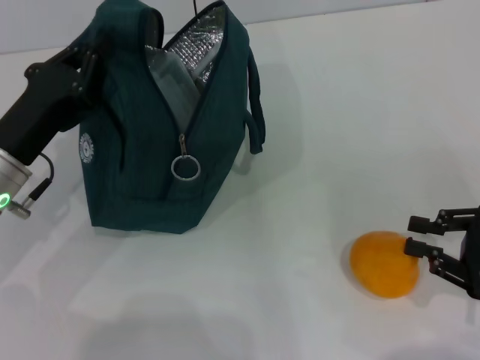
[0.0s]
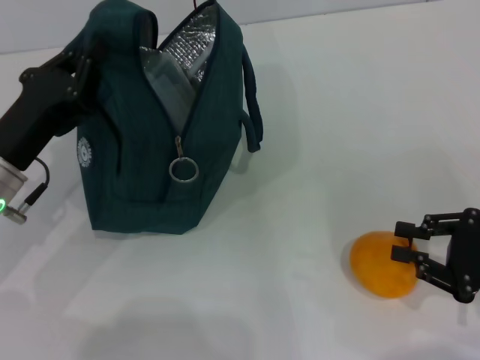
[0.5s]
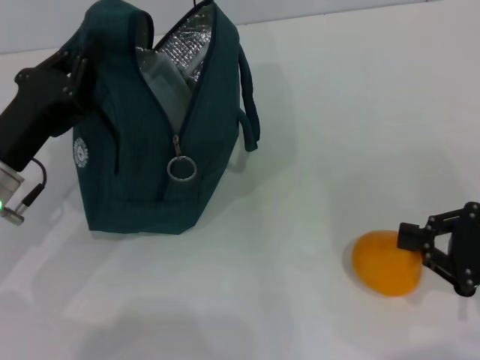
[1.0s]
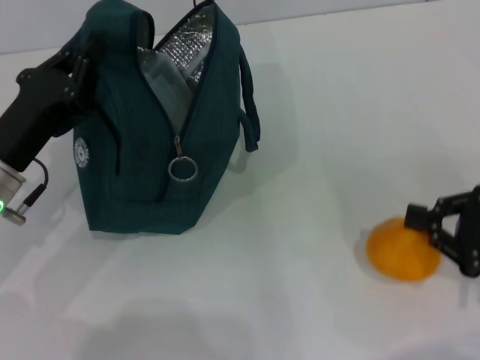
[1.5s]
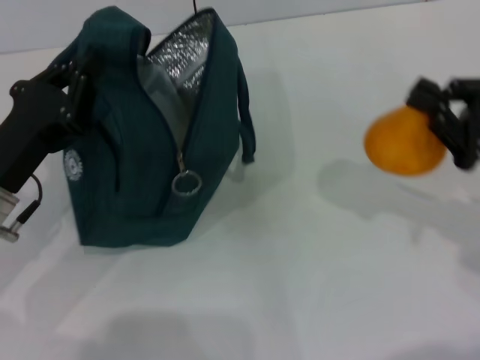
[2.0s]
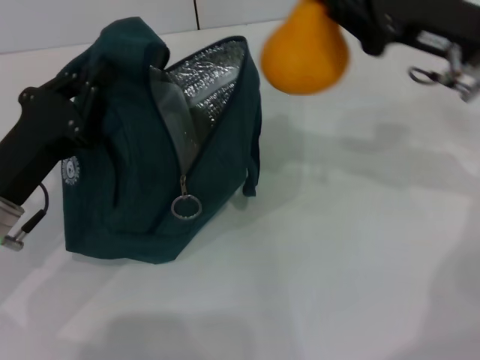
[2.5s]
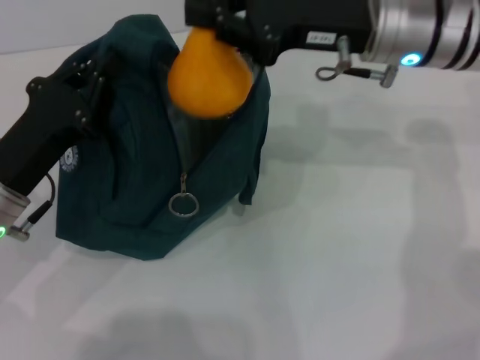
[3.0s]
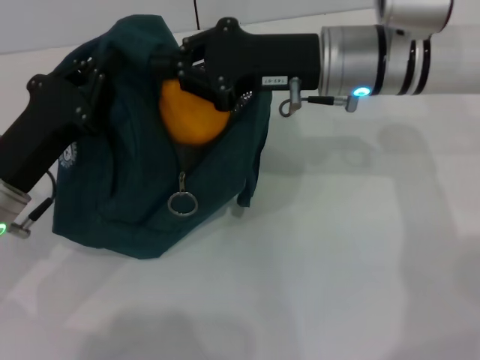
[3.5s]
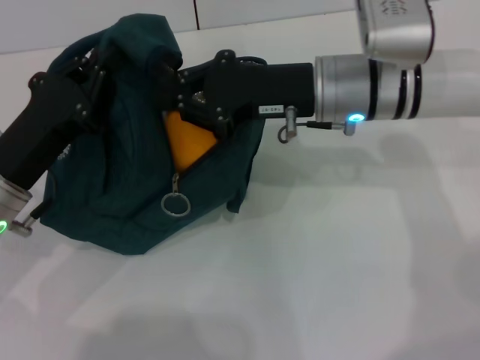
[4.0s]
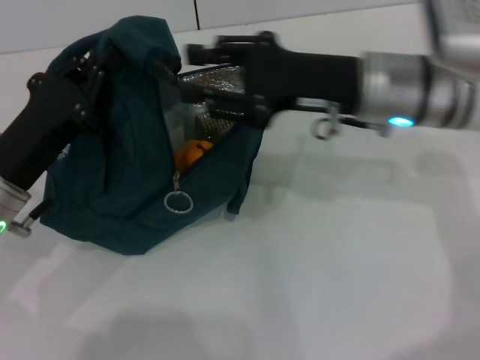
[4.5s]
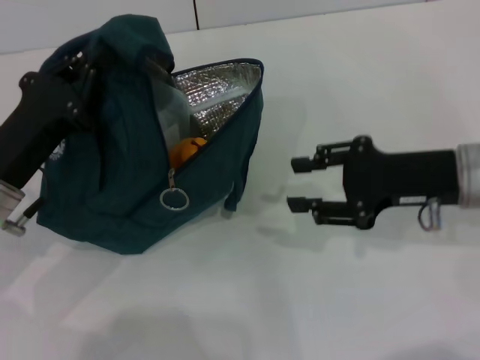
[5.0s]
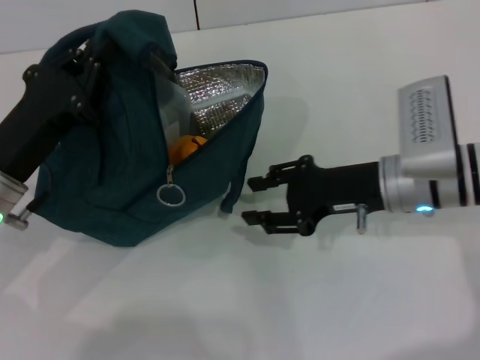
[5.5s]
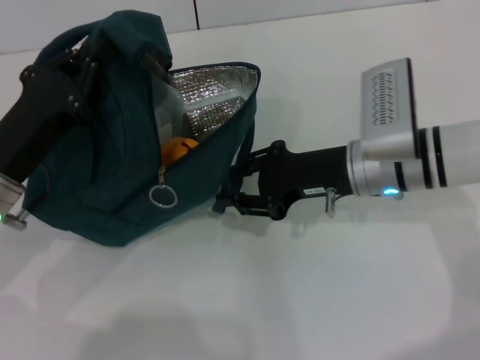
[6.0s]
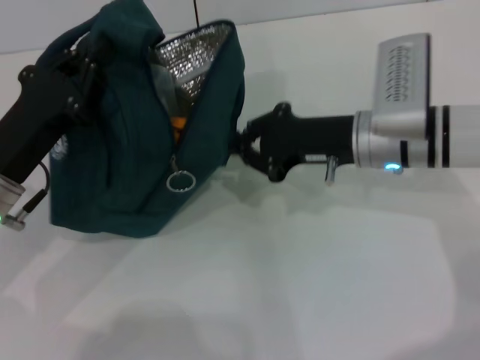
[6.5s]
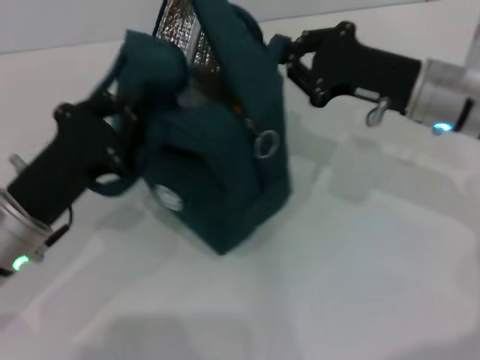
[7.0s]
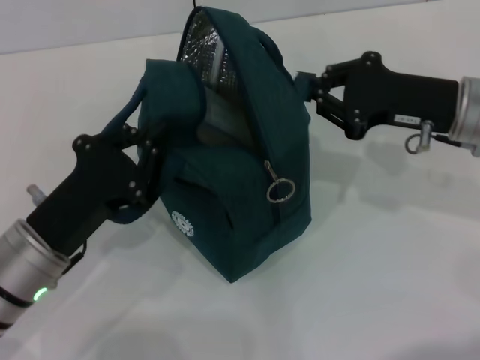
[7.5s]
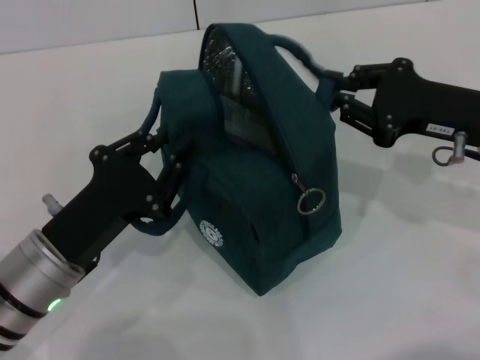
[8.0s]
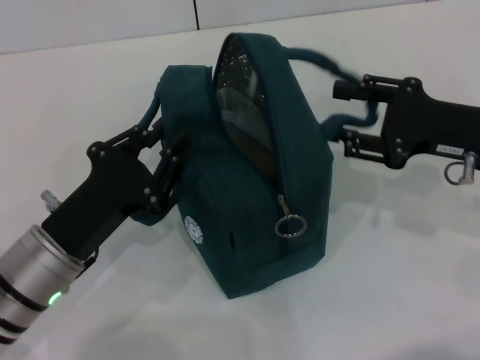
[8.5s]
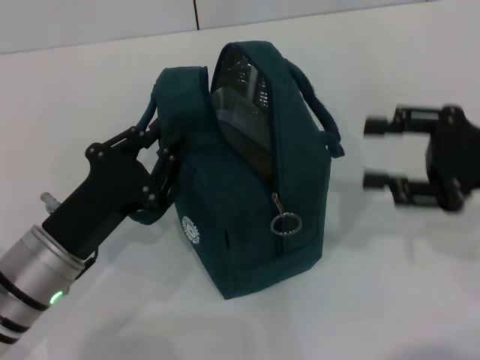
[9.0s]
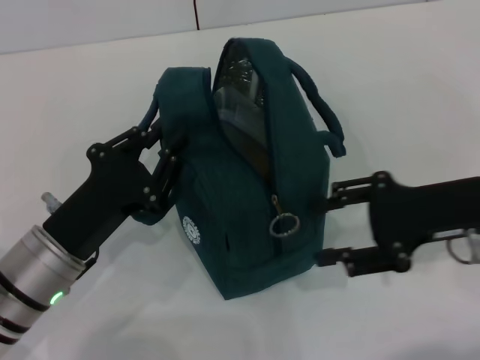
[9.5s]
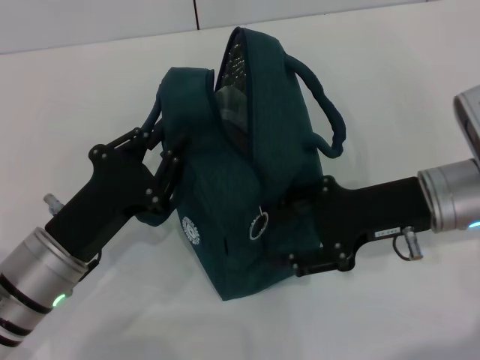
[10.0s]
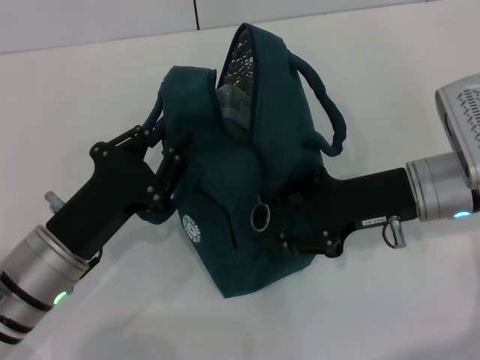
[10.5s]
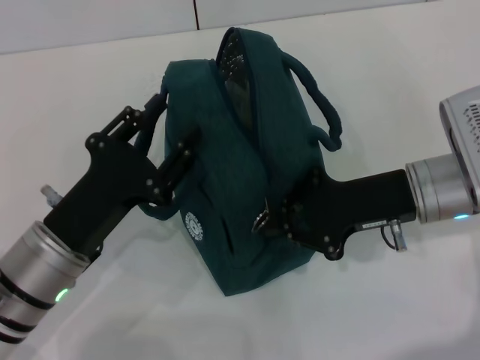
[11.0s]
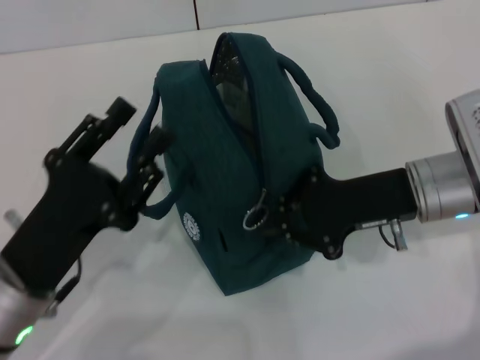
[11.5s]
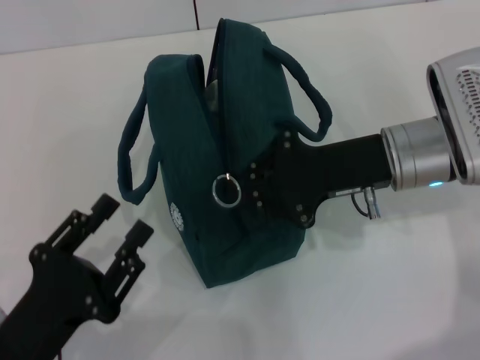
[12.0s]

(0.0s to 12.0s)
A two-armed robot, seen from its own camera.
Step, 4.5s - 8.0s: Hold the lunch bag with your right hand.
0.0s - 2.0s: The right gripper travels forward and upward by about 10 cm, and closes its fingers.
2.0s - 4.0s: The right gripper shifts approximately 20 cm to the left and forward.
4.0s - 6.0s: The right gripper is displaced downward by some 5 cm, and moves roughly 10 cm to the right and comes back.
6.0s - 8.0s: The left gripper is displaced backward by some 5 cm. The right gripper goes approximately 10 cm to the right.
8.0s - 10.0s: The right gripper heads to the left, covering some 5 cm, and opens.
10.0s - 12.0s: The left gripper goes about 10 cm backward, while the right gripper closes its fingers.

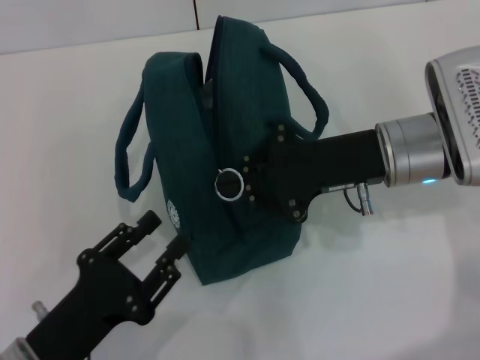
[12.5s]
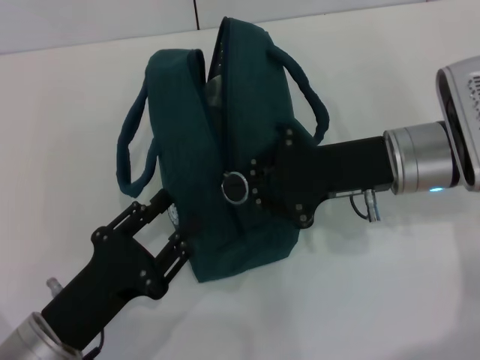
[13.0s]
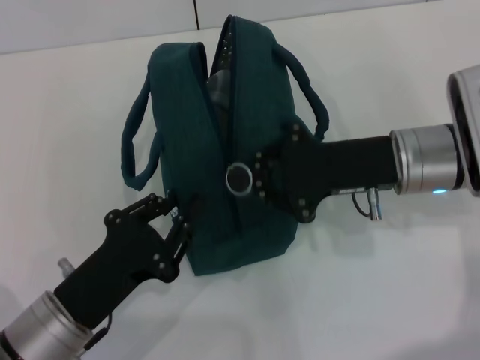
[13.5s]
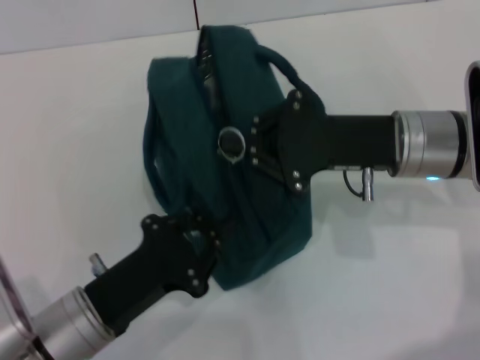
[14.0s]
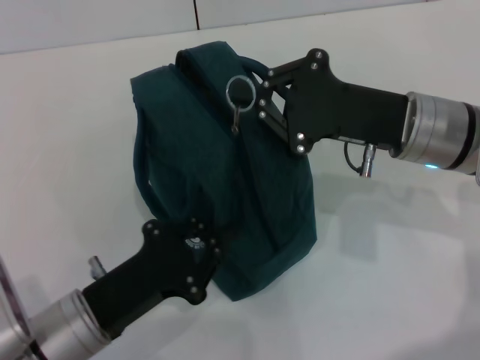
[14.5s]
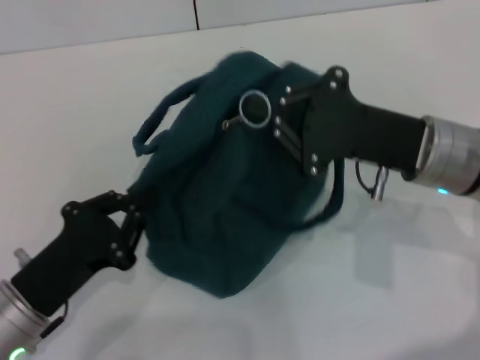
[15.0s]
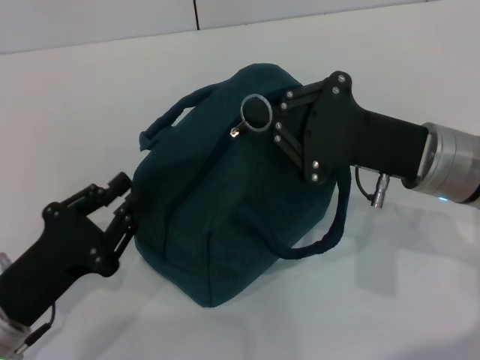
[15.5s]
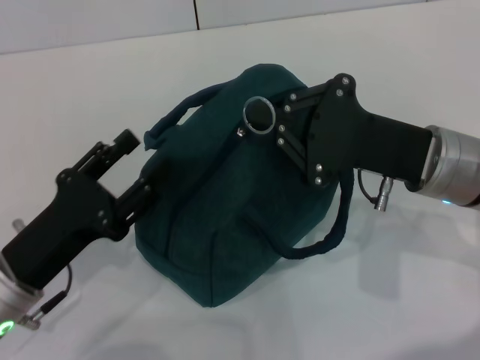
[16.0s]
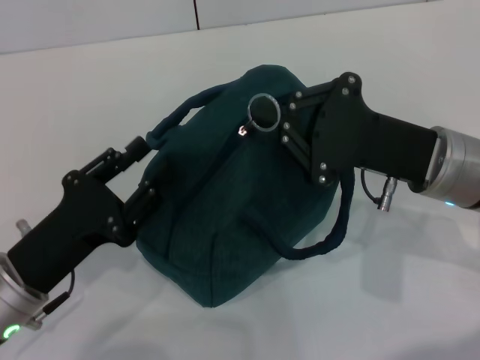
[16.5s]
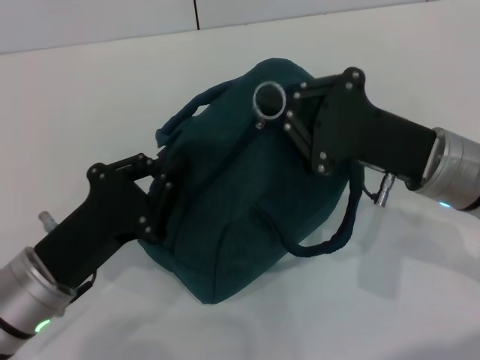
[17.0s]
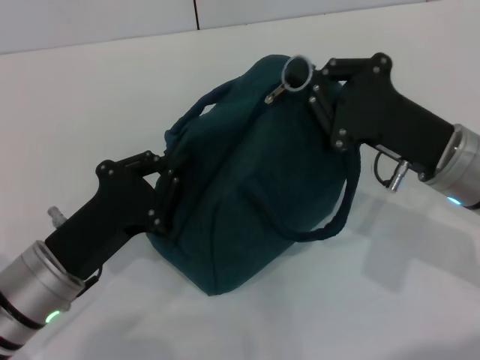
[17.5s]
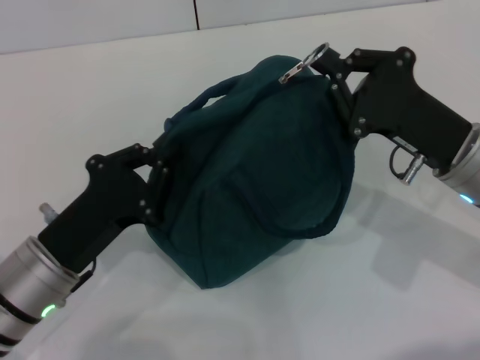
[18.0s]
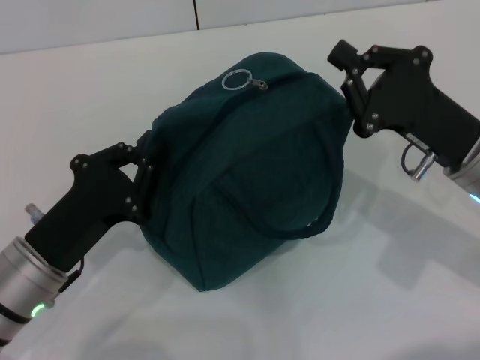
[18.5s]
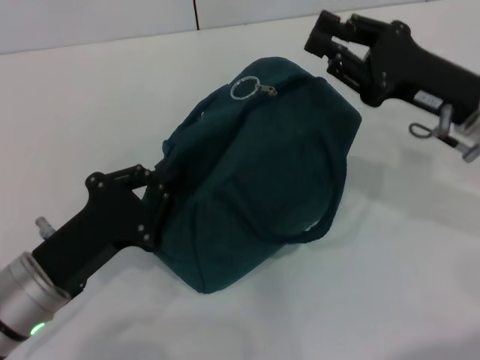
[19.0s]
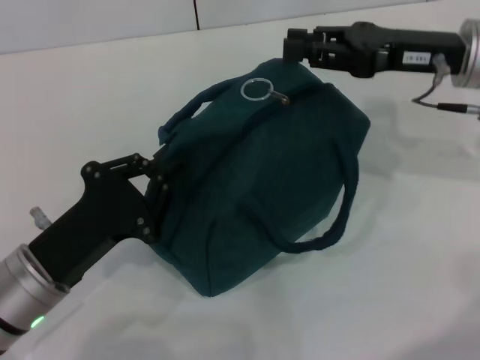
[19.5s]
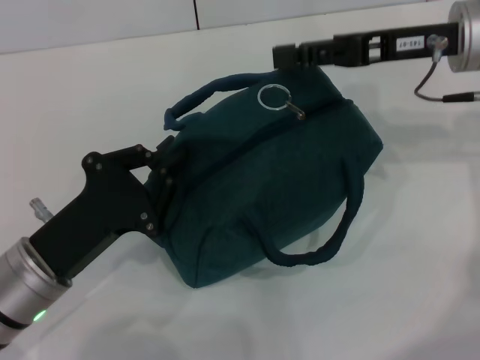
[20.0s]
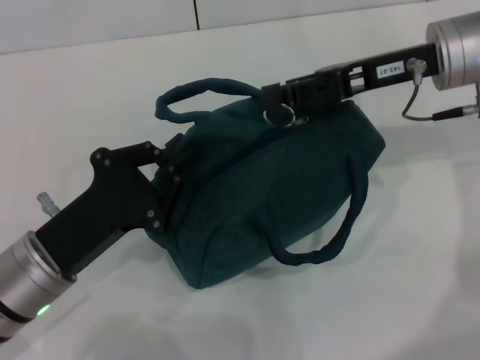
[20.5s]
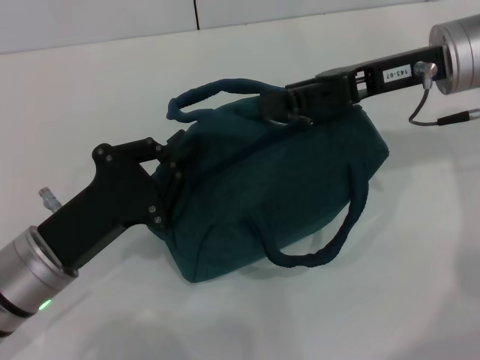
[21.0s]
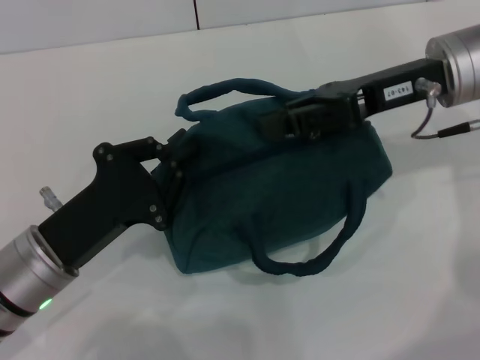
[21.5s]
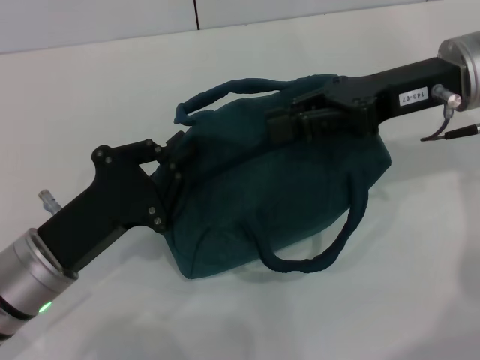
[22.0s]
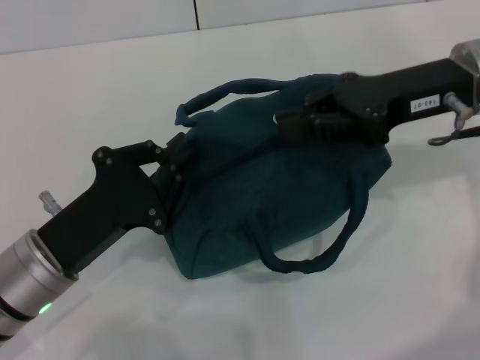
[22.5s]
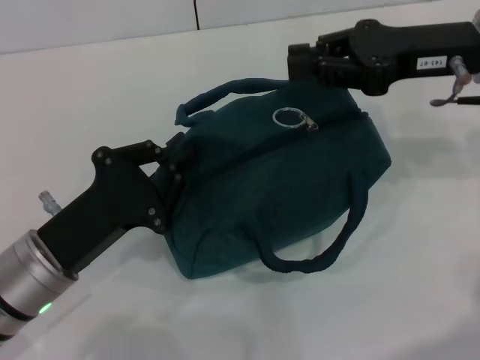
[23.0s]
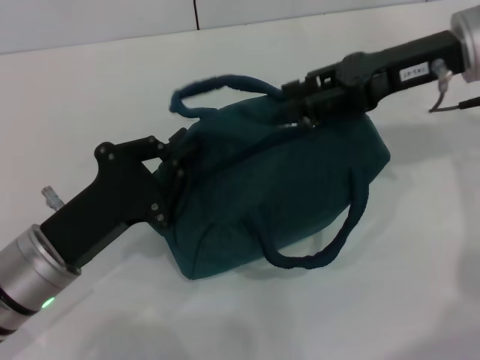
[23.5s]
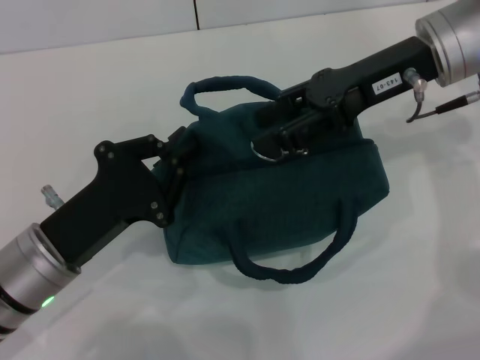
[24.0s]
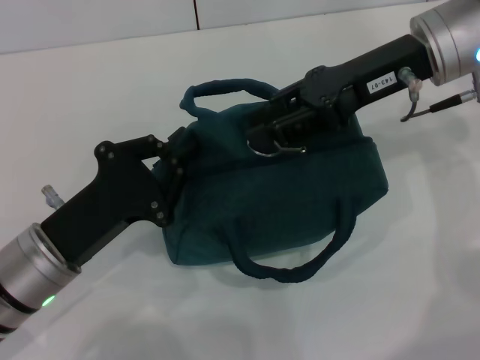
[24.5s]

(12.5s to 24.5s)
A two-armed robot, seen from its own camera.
12.5s - 14.5s: The left gripper moves roughly 5 cm, and closes its fingers.
14.5s - 16.5s: The left gripper shifts by about 5 cm, and opens its fingers.
16.5s - 18.5s: The left gripper closes its fingers.
18.5s - 20.5s: The right gripper heads upward and forward, covering some 15 cm, and opens its fingers.
22.5s - 24.5s: The right gripper opens up.

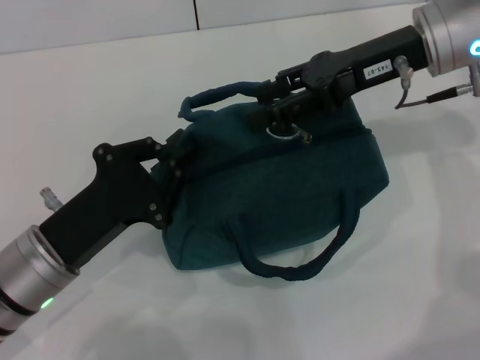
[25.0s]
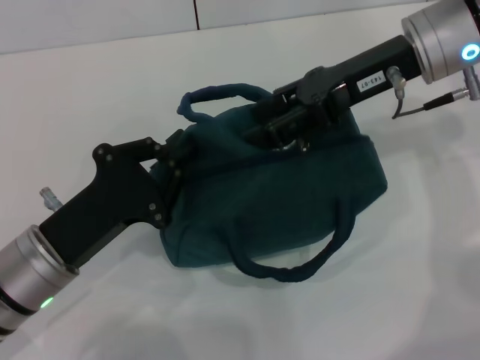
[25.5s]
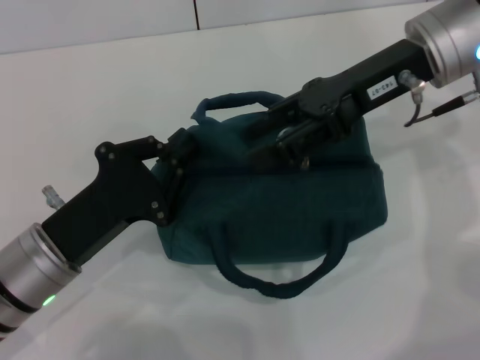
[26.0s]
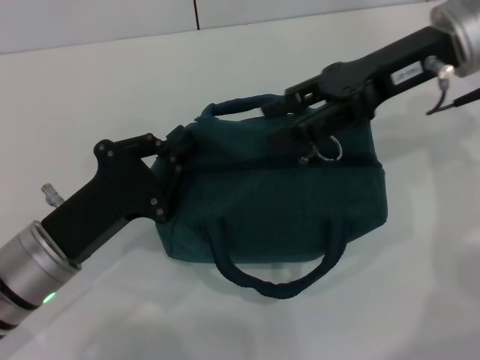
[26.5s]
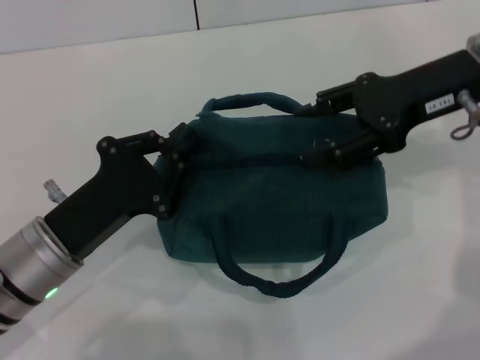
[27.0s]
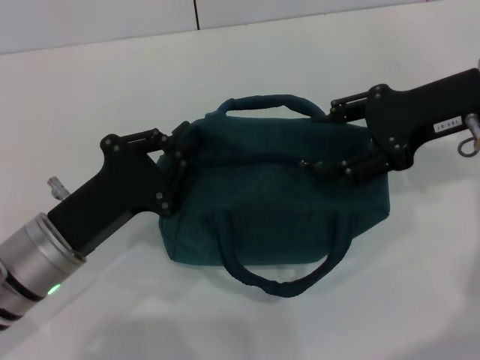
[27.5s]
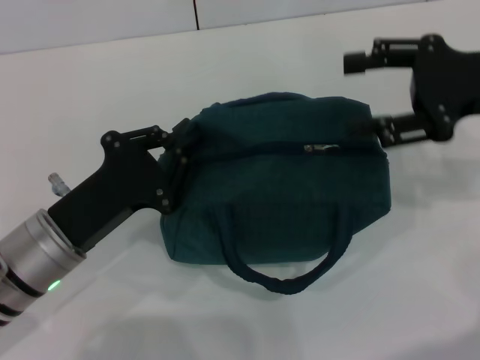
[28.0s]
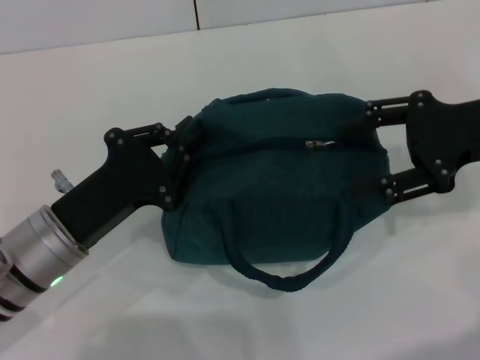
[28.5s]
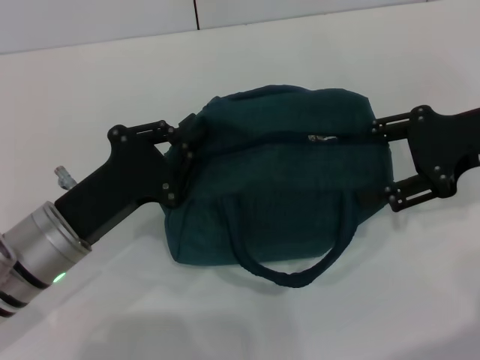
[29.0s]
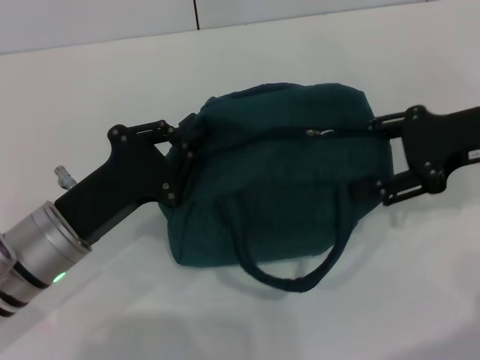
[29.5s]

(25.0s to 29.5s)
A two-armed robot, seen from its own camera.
25.0s - 27.0s: The right gripper shifts by approximately 5 cm.
27.0s - 29.5s: The right gripper changes place by approximately 5 cm.
